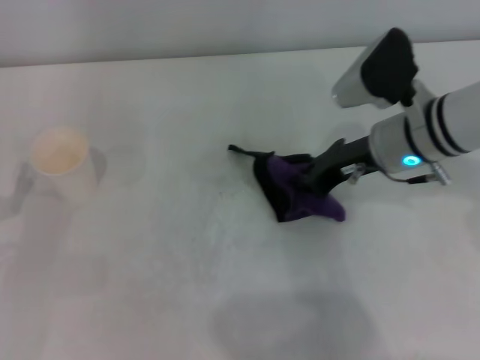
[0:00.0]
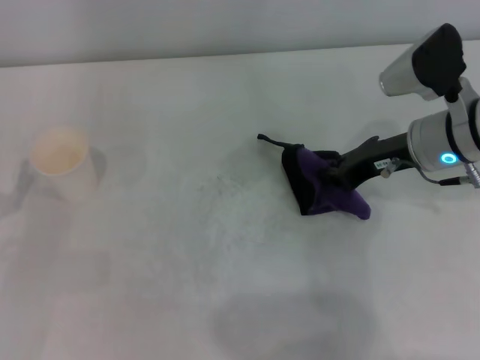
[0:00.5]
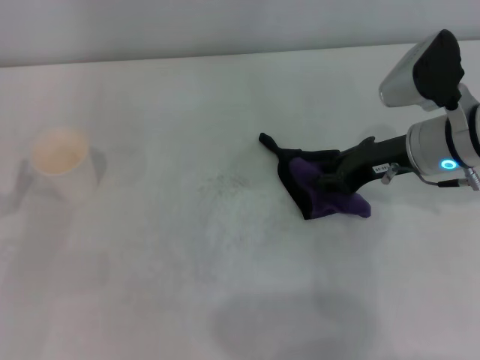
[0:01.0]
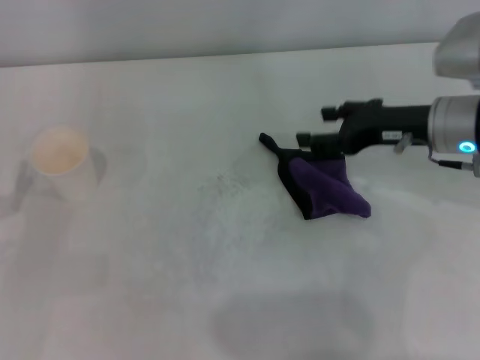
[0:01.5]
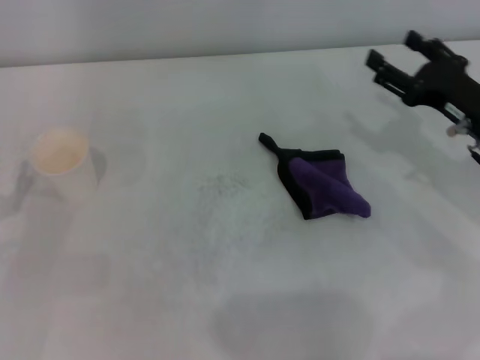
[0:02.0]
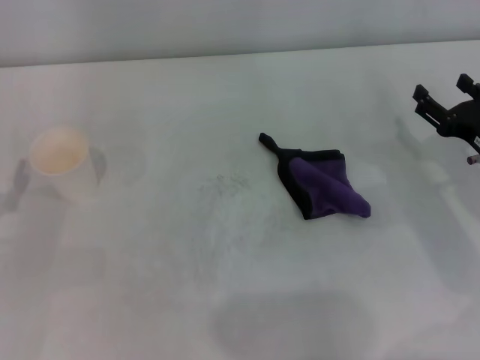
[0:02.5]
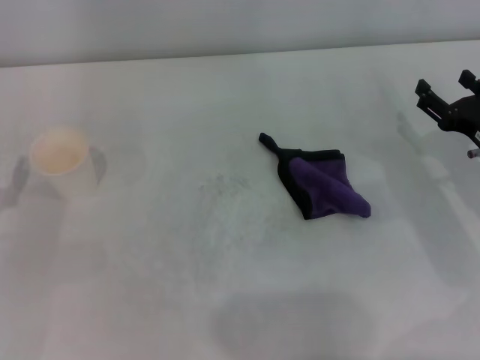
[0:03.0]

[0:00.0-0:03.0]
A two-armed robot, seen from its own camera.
0:00.0 to 0:01.5: The right gripper moves to the right, about 5 cm, and opens up.
0:01.5 to 0:03.0: The right gripper moves downward, to the right and backward, approximately 10 cm.
